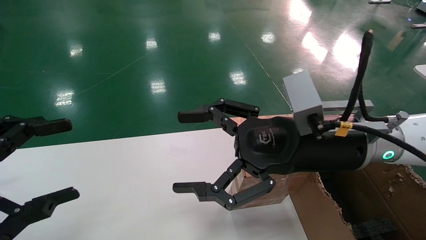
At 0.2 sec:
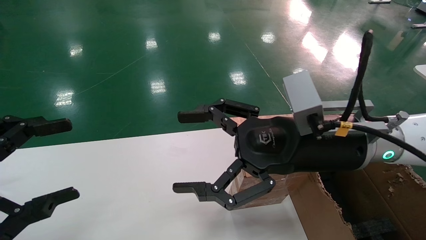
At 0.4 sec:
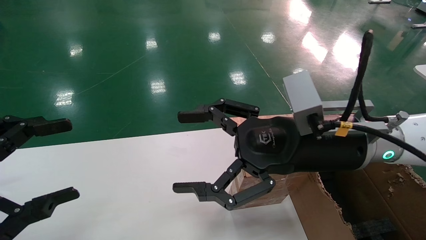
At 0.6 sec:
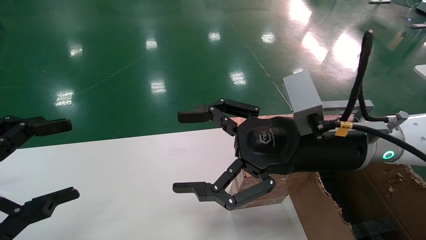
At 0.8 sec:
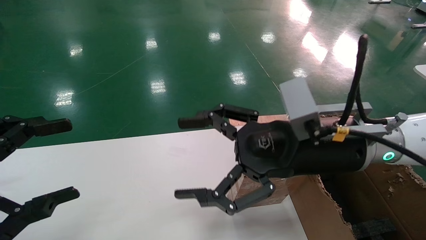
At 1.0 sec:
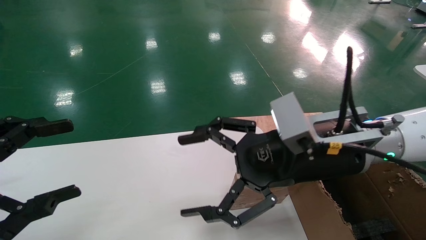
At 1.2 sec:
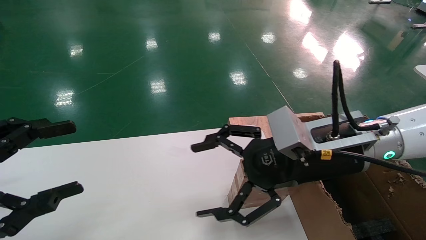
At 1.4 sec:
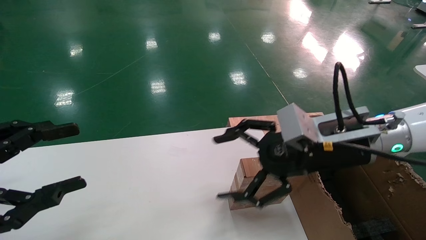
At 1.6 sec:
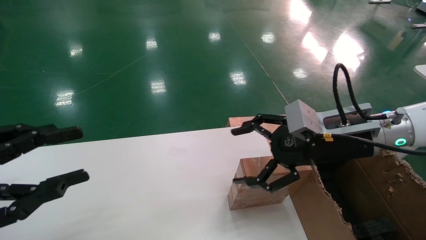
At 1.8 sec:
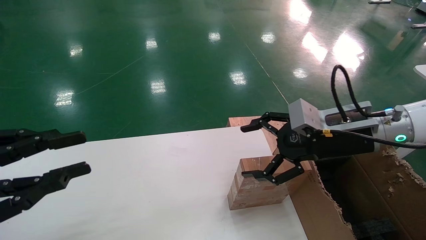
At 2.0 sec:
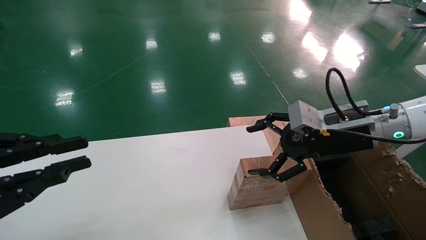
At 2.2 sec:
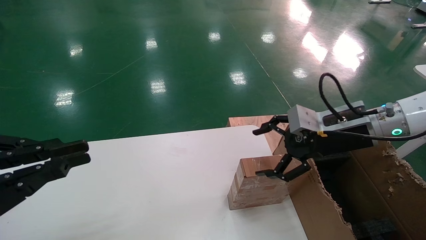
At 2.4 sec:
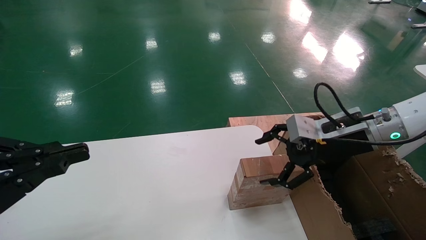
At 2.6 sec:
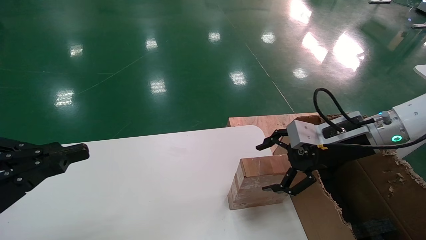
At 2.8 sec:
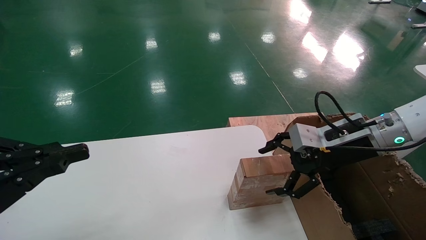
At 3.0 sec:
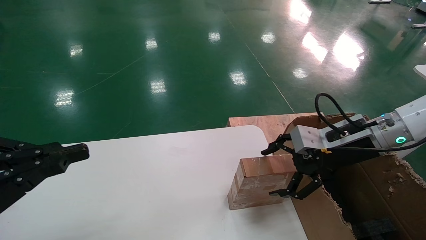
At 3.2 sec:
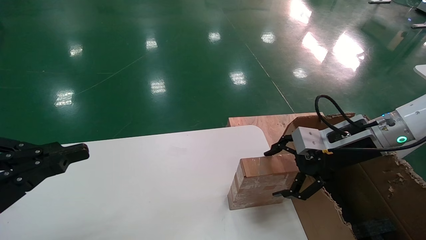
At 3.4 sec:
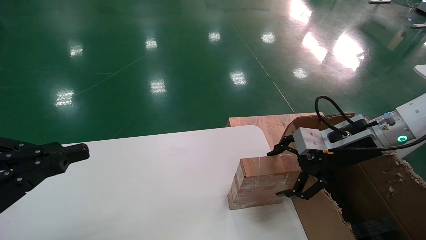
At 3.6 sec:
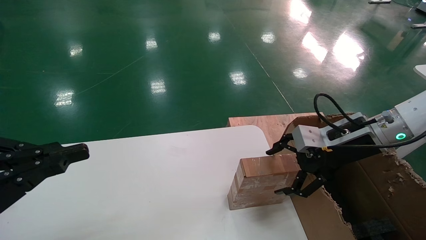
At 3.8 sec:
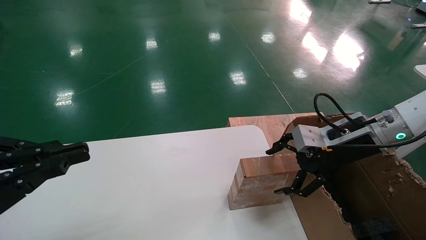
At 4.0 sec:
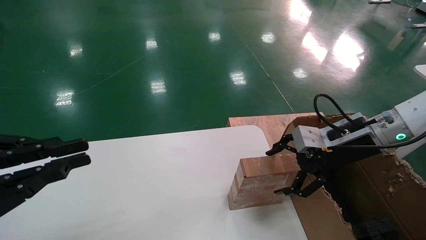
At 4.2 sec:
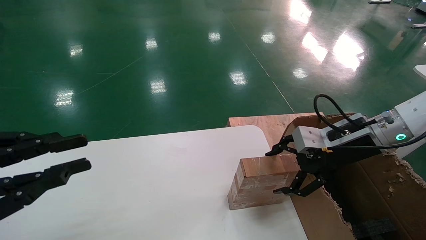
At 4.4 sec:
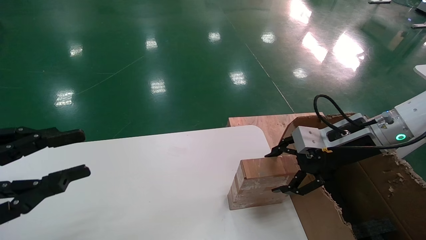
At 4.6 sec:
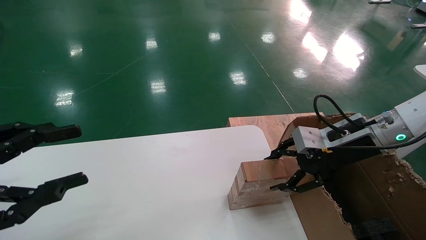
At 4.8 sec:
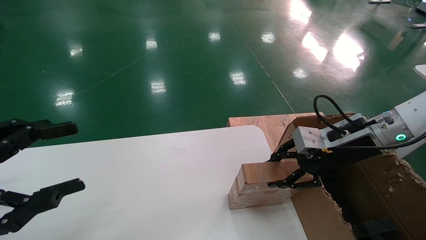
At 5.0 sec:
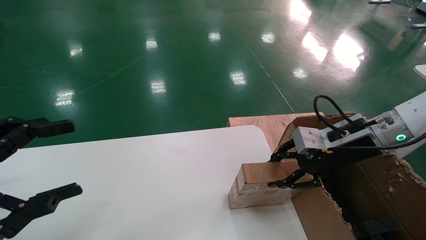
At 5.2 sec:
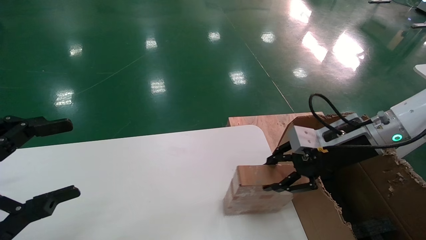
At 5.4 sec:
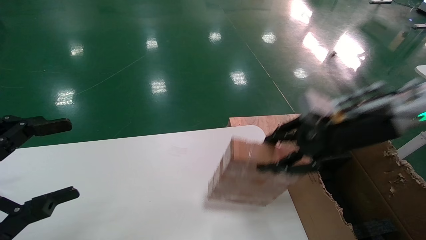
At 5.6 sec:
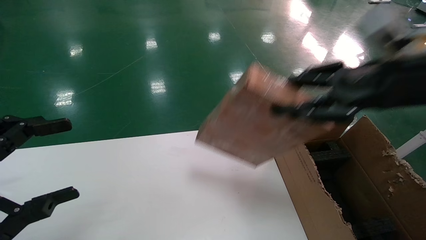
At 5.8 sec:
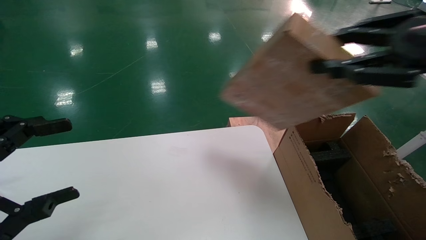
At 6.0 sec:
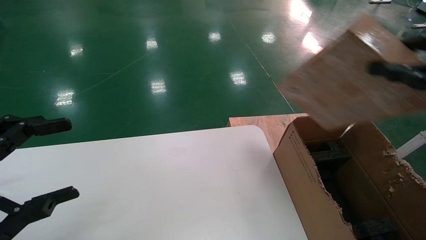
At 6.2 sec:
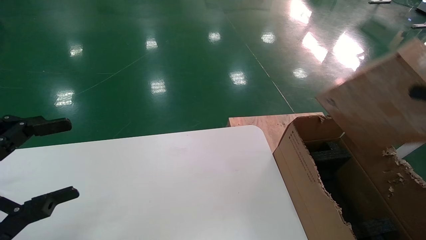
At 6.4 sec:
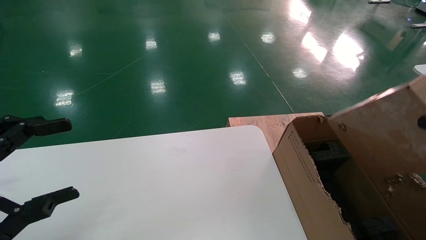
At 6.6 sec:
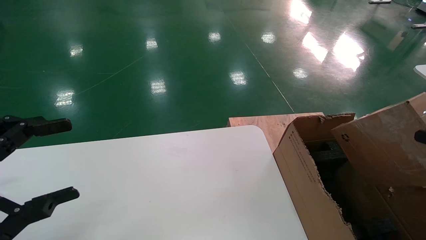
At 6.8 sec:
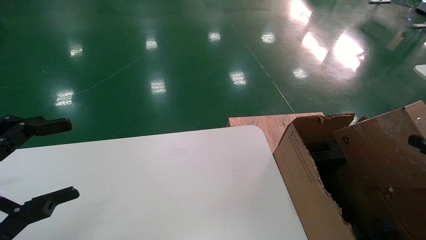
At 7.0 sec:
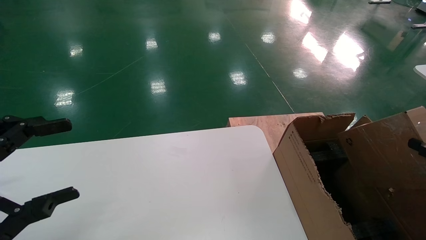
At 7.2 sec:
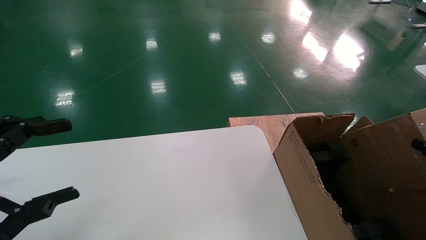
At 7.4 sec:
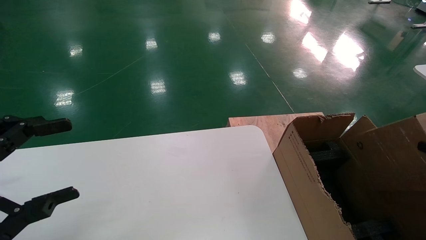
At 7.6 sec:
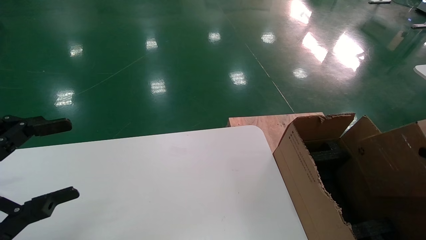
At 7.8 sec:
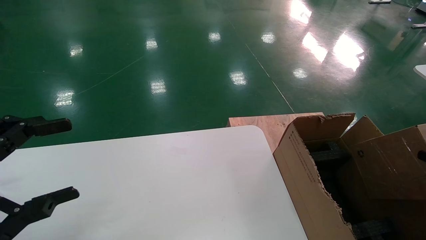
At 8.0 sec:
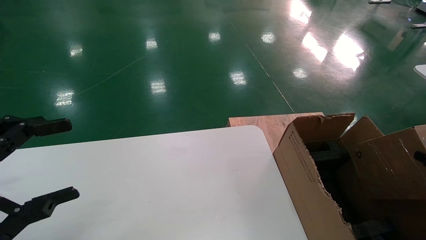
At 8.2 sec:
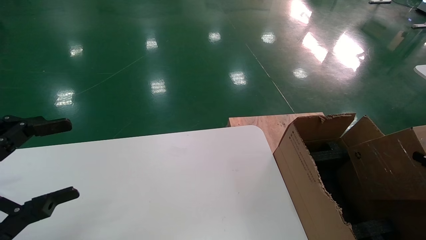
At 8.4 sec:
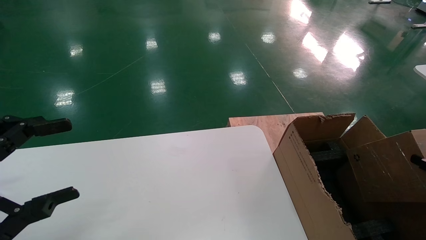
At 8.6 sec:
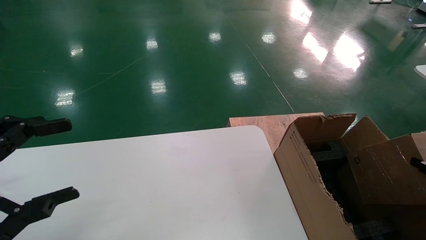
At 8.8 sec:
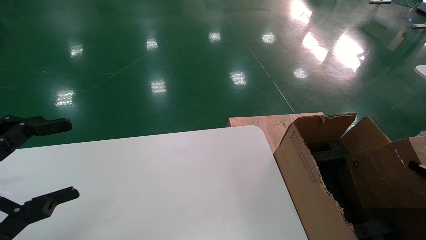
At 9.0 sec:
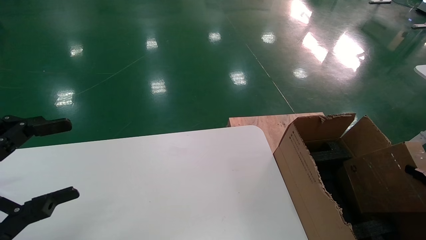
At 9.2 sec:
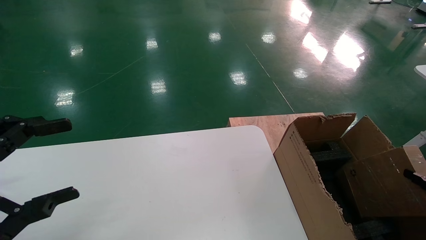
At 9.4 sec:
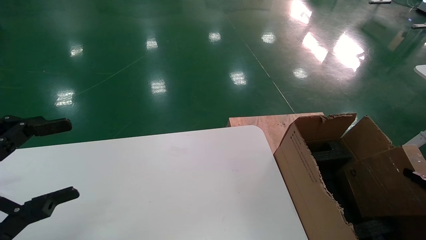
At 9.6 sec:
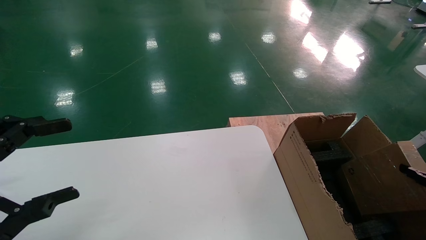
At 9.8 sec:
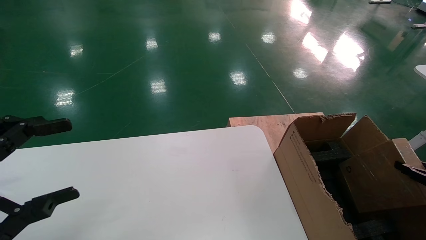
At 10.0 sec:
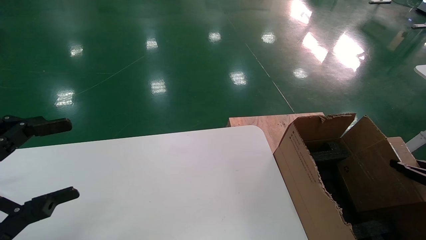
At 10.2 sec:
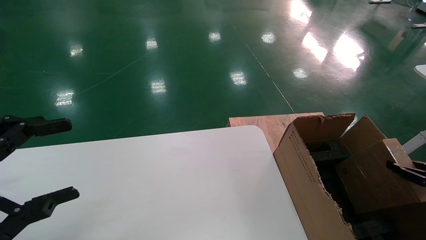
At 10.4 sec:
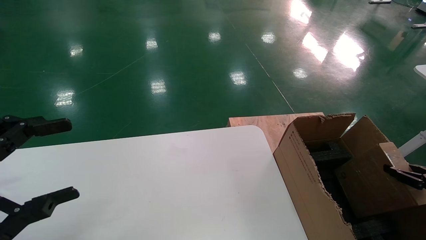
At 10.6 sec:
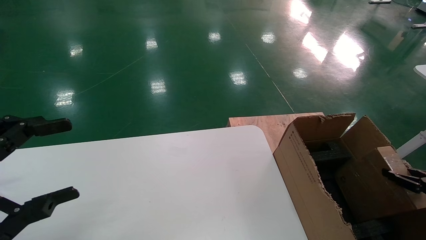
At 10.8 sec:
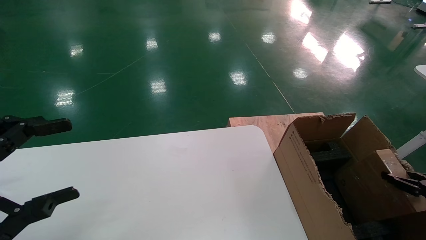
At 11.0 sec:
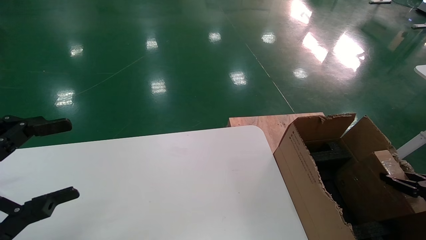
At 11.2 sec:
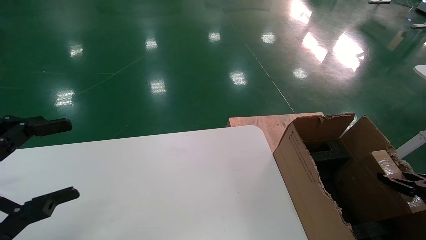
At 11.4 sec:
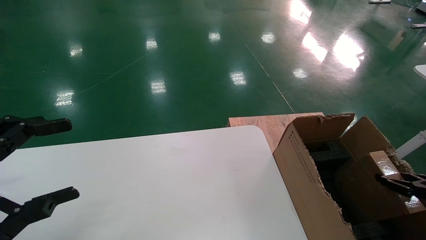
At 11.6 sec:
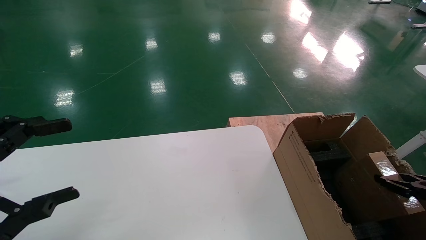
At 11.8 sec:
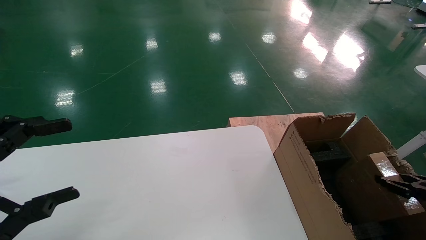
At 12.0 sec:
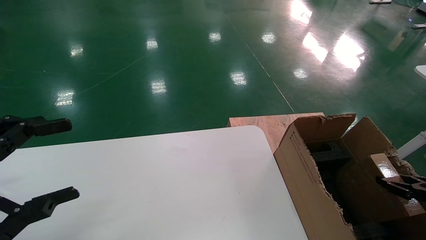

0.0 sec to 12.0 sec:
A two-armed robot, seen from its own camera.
Task of the whole recording: put the box on the table into the big box.
Step, 1.2 sec to 5.0 sec: Pick up the mouse and the power cord paper box.
0.0 sec to 1.6 sec: The left gripper closes. Meanwhile the right gripper shifts approximately 5 cm to the right.
1.6 sec to 3.0 sec: The right gripper moves to the right, about 5 cm. The left gripper closes.
3.0 sec to 4.4 sec: The two grippers keep their place.
4.4 sec to 6.0 sec: The right gripper travels backward and upward by roughly 25 cm, and closes. The left gripper opens.
6.0 sec to 7.6 sec: The right gripper goes roughly 25 cm downward and to the right.
7.6 sec to 9.0 sec: The right gripper goes roughly 5 cm downward.
9.0 sec to 10.4 sec: The right gripper shifts roughly 5 cm forward.
10.4 sec to 12.0 sec: The grippers stay close to where they were, moving slightly.

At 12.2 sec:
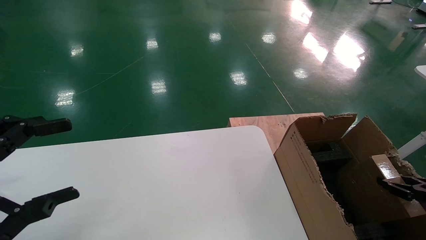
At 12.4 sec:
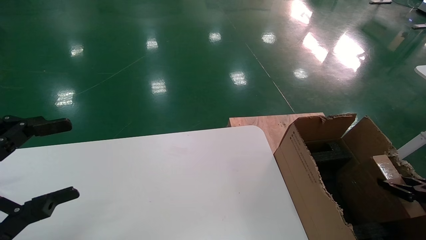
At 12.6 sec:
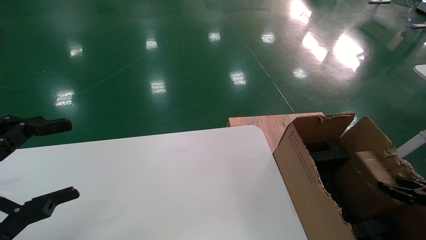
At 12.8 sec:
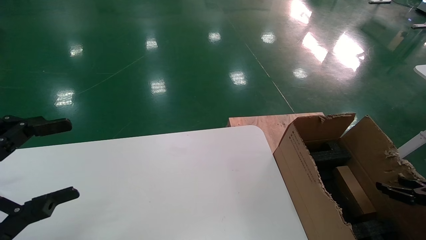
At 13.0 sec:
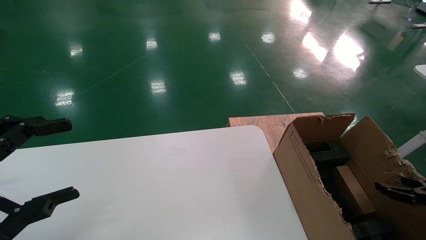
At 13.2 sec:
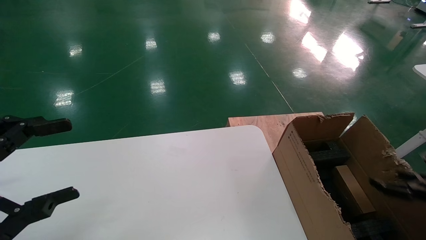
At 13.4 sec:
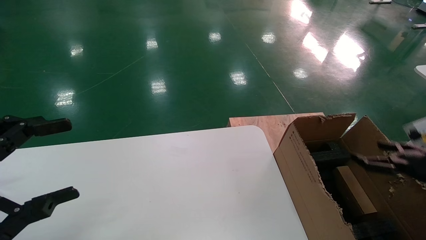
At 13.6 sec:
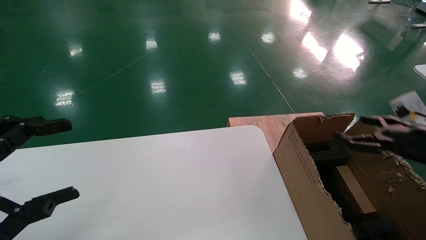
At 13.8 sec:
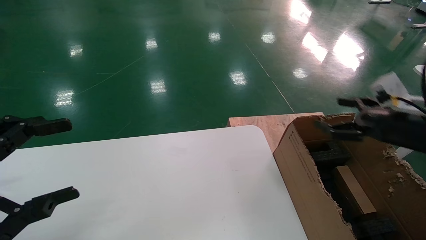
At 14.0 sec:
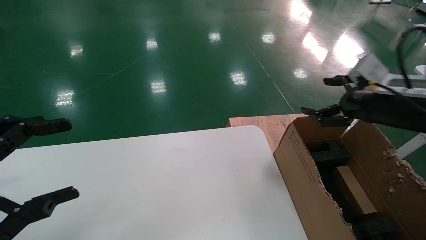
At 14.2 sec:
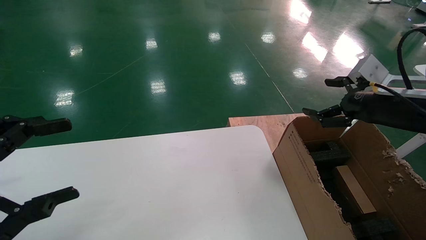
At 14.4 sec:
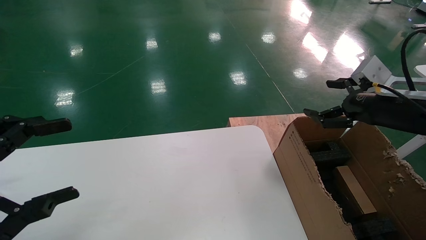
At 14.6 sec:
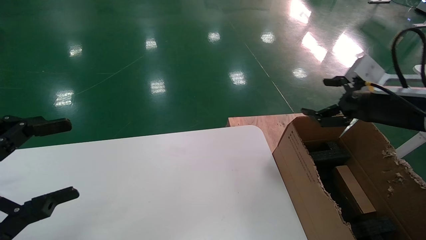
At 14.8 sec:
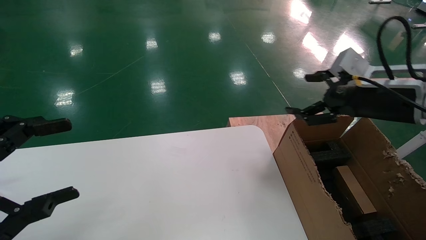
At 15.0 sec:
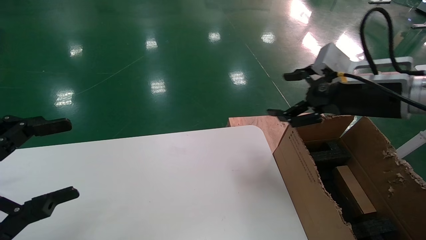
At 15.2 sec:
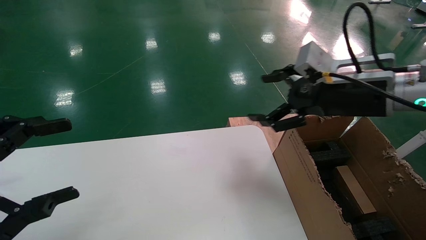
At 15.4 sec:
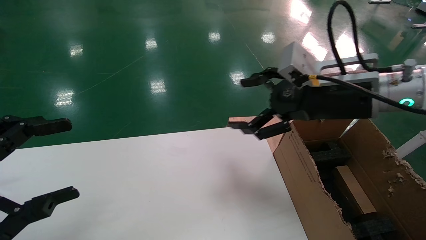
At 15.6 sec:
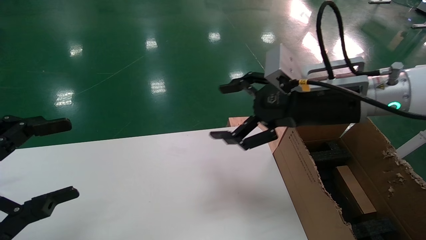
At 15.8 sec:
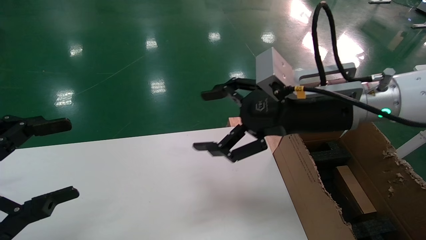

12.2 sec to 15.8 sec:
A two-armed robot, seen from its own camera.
Task of the whole recording: put the box on the table into the big box.
12.2 sec to 14.0 sec: The right gripper is displaced upward and to the left by approximately 25 cm, and opens its fingers.
14.0 sec to 15.8 sec: The right gripper travels to the left by about 20 cm.
